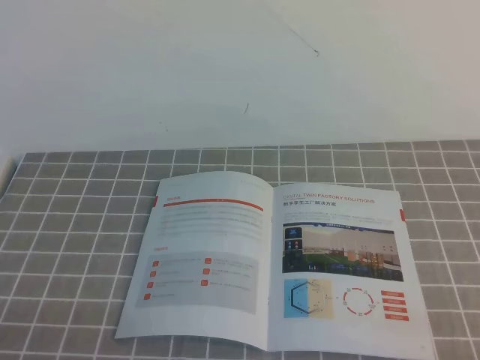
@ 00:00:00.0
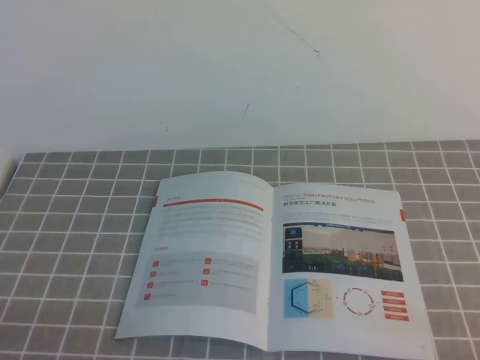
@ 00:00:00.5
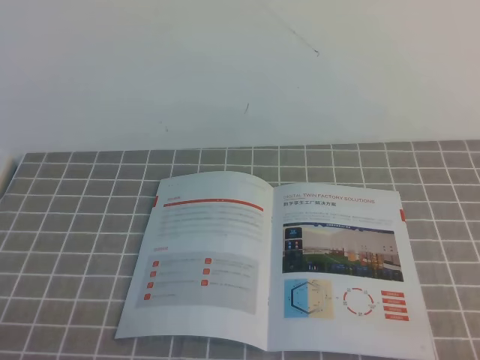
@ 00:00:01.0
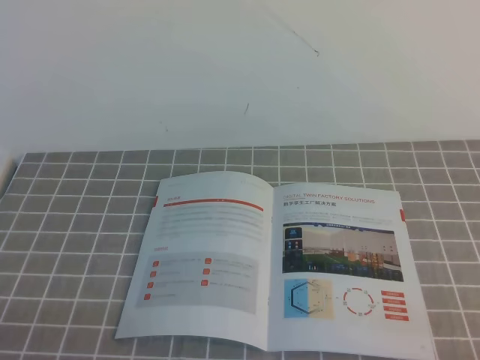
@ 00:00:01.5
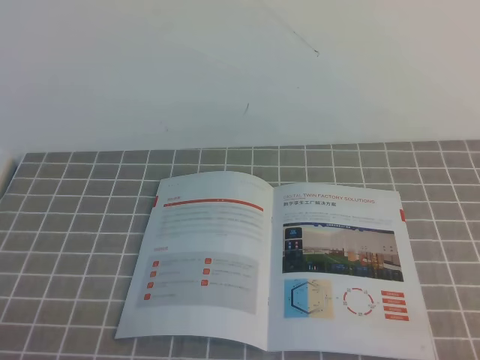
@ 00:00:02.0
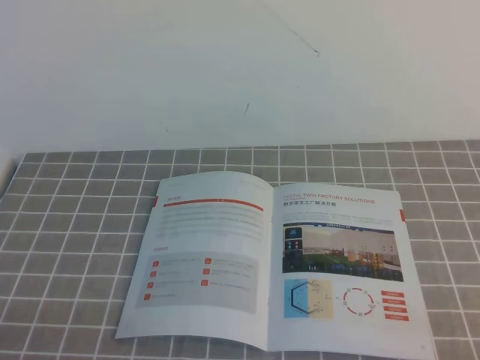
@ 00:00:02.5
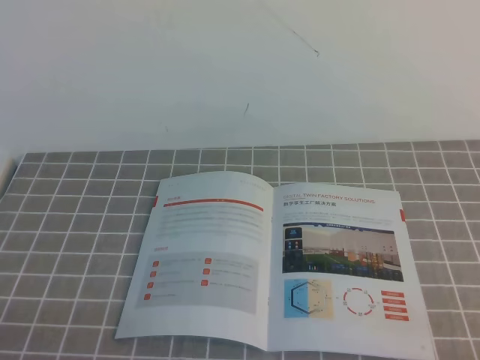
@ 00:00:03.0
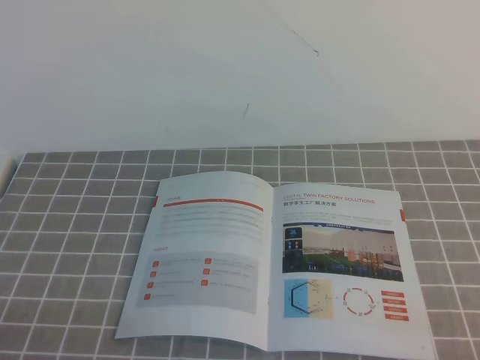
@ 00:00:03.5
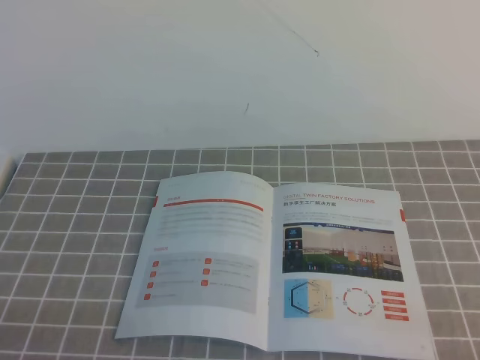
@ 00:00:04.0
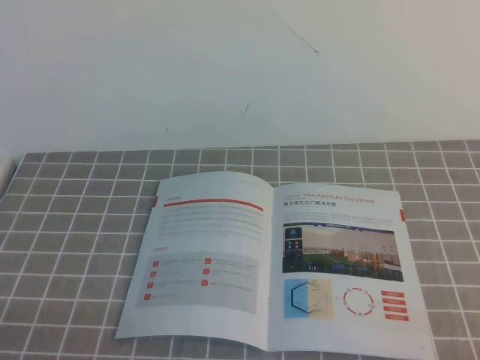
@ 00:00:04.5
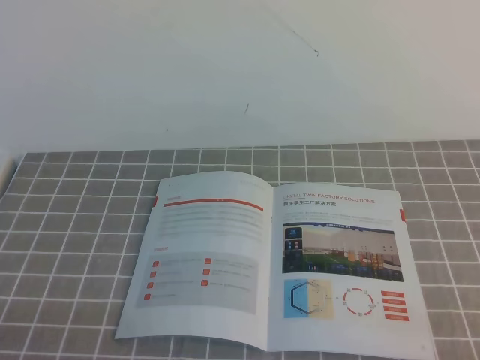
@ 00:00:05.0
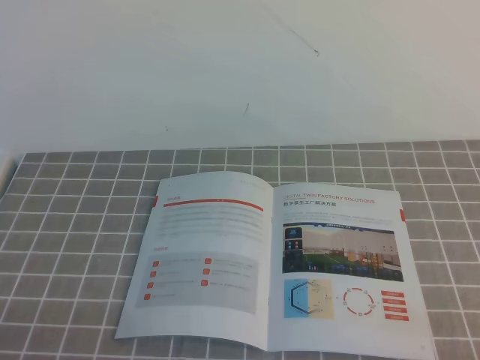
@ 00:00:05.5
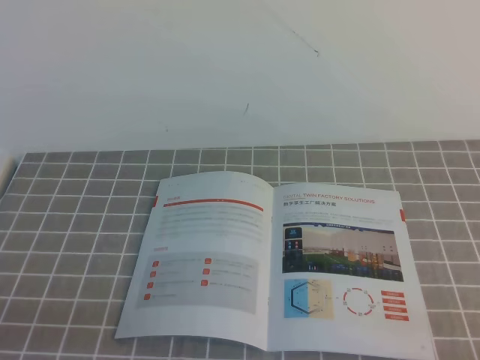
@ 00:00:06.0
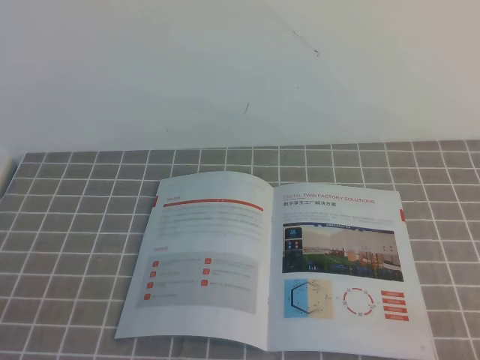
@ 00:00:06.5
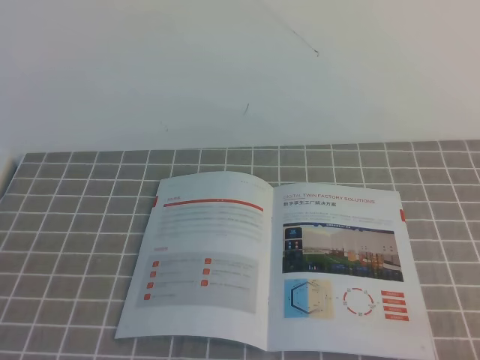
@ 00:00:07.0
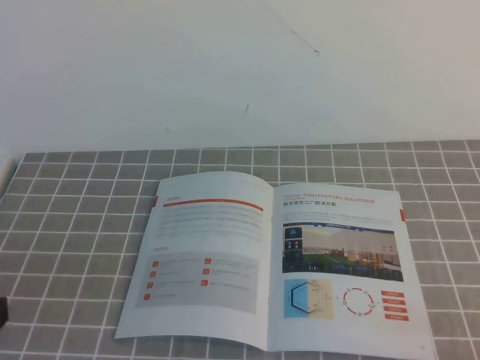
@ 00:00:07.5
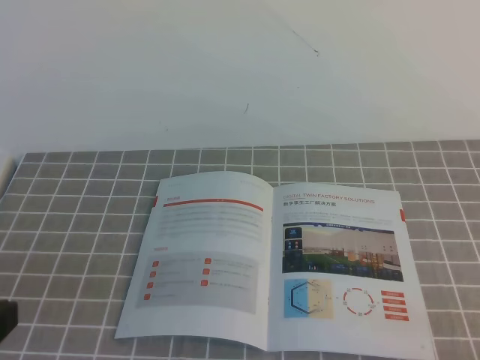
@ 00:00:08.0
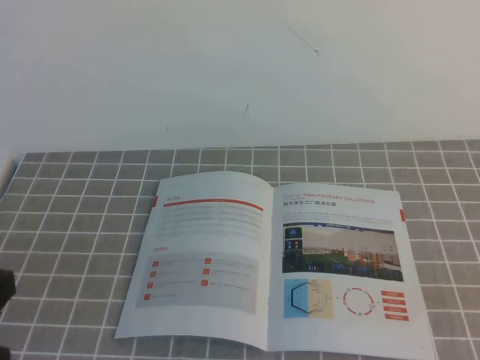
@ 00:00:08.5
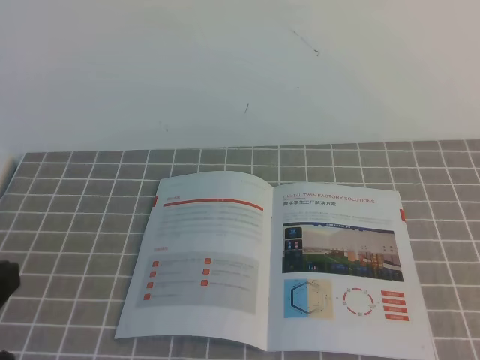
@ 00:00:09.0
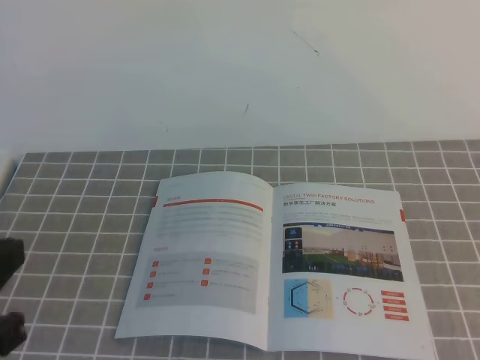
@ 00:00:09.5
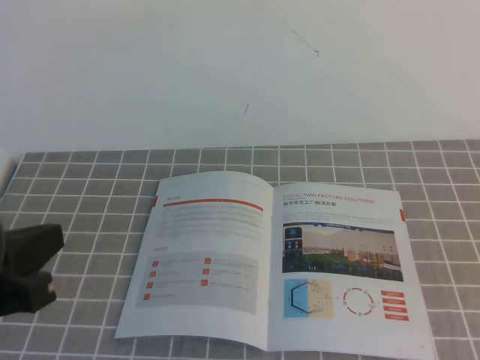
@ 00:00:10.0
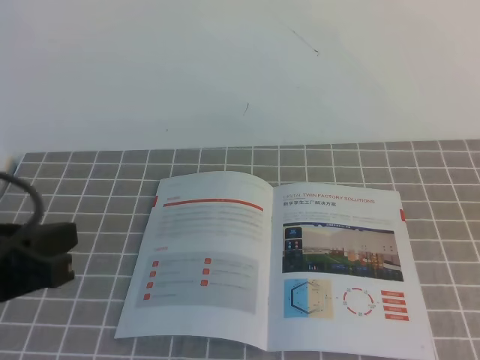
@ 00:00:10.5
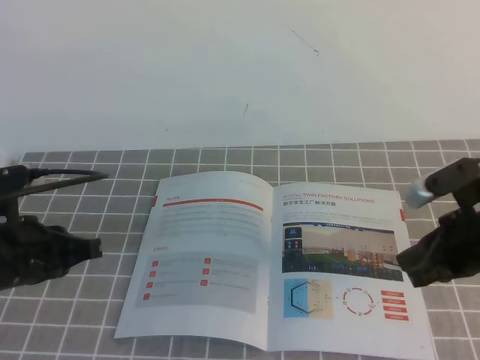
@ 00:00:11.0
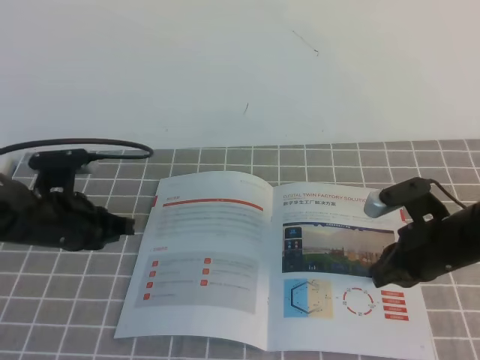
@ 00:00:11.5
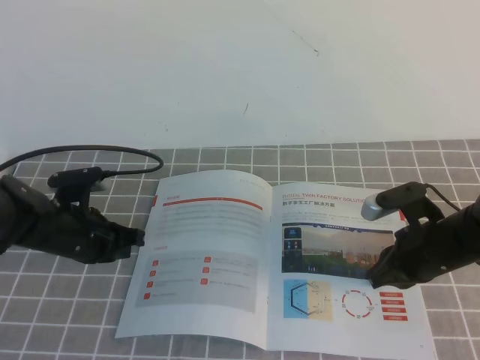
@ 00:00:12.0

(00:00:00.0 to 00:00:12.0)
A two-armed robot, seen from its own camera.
Task of the whole recording: on the grey tablecloth, hold the book with one hand and close it with the other.
00:00:00.0 - 00:00:04.0: Neither gripper changes place.
00:00:08.0 - 00:00:10.0: The left gripper goes some 5 cm forward.
00:00:10.0 - 00:00:12.0: Both grippers travel together forward and downward, some 30 cm.

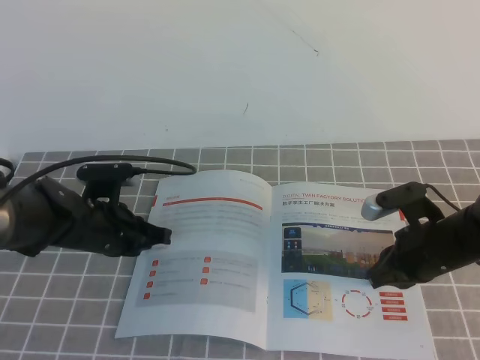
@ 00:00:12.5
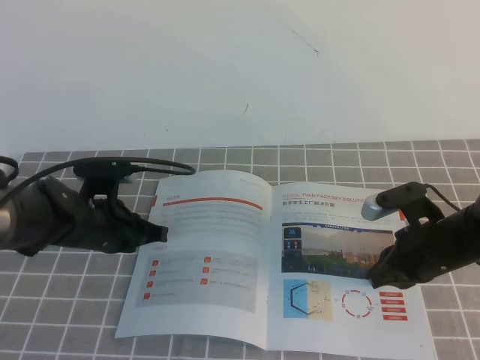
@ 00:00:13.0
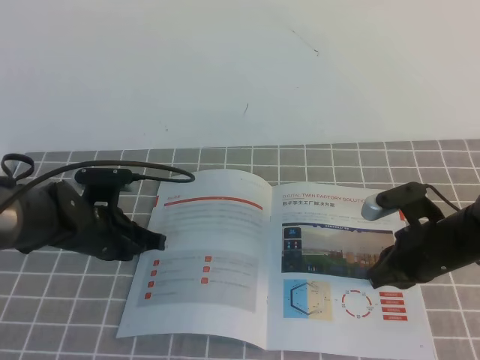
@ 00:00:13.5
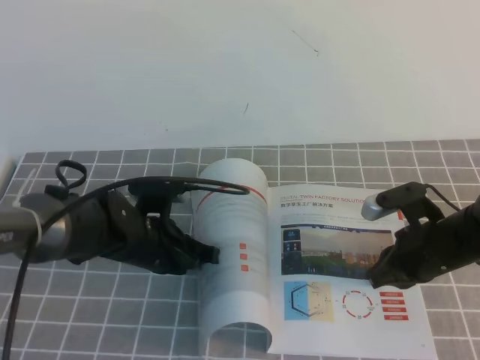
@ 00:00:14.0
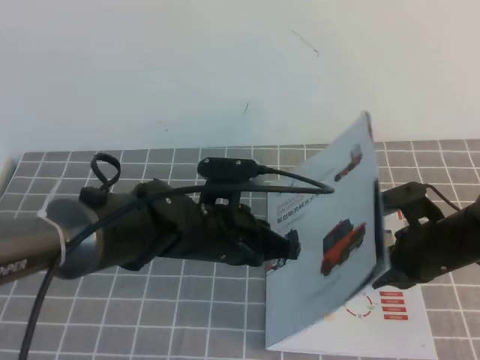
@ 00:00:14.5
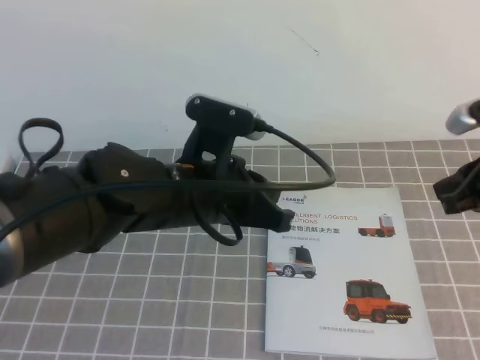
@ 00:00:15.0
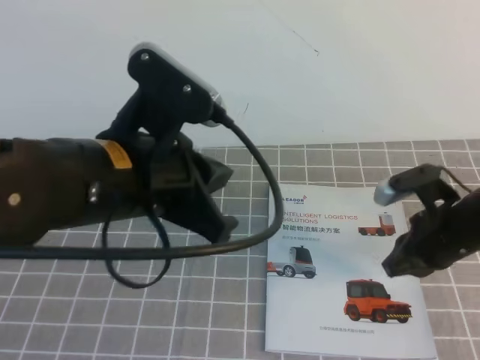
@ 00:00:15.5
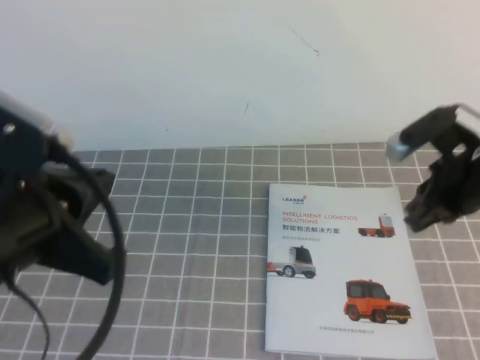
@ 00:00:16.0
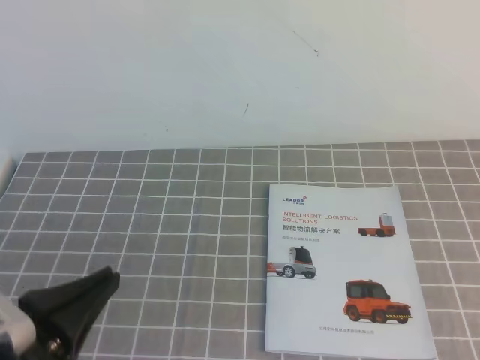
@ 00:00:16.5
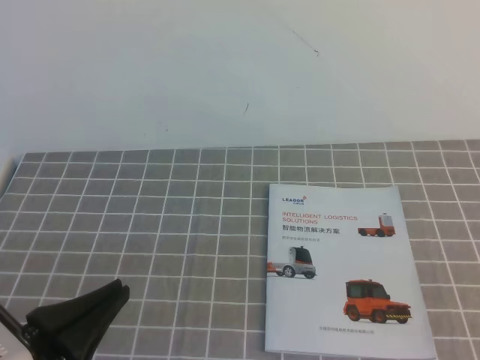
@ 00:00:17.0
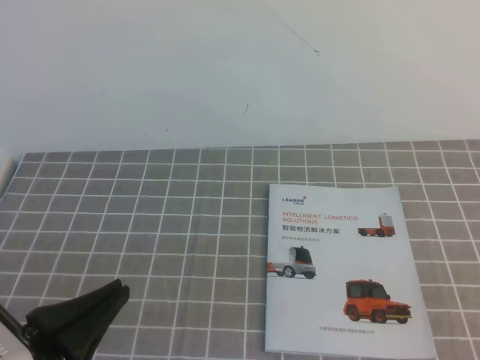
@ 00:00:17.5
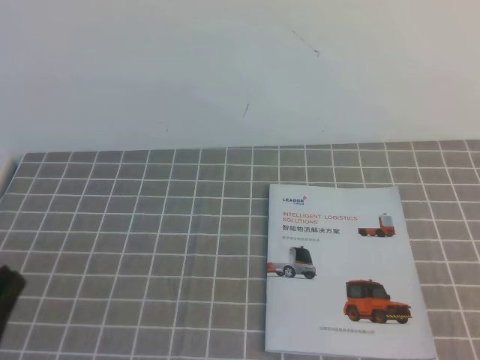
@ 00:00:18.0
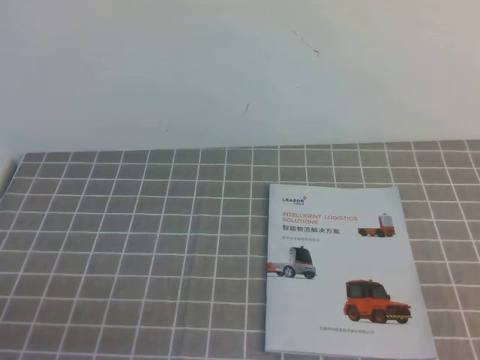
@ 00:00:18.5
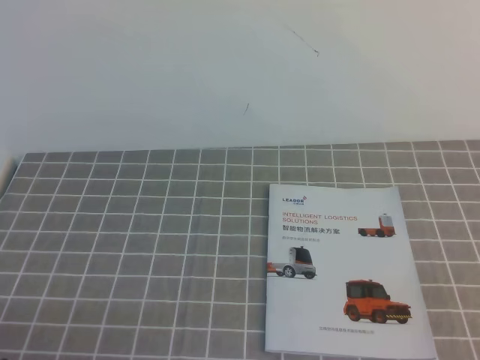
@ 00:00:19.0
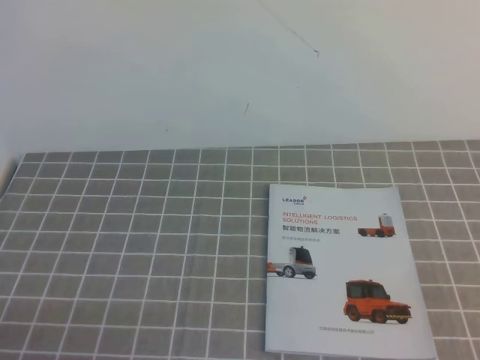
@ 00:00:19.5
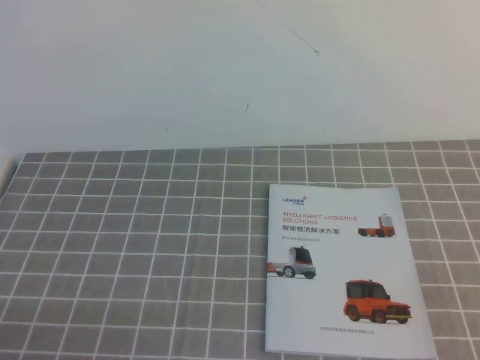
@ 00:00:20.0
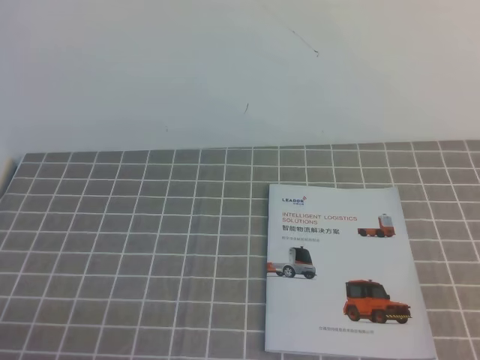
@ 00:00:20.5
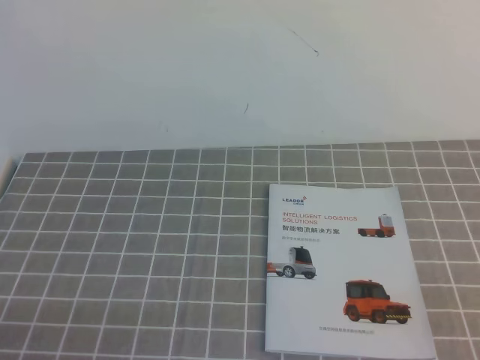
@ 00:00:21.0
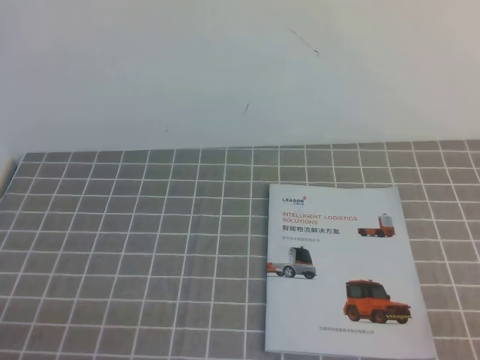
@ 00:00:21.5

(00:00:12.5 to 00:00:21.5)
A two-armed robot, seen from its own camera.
Task of the whole recording: on the grey tablecloth, hold the book with one hand and close it with the other.
Step, 00:00:12.5 - 00:00:21.5: Close the open book.
00:00:12.5 - 00:00:14.5: The left gripper is displaced to the right by roughly 15 cm.
00:00:14.5 - 00:00:17.0: The right gripper travels backward and upward by approximately 30 cm. Meanwhile the left gripper travels backward and to the left by some 25 cm.
00:00:17.0 - 00:00:19.5: The left gripper moves downward and to the left, approximately 10 cm.
